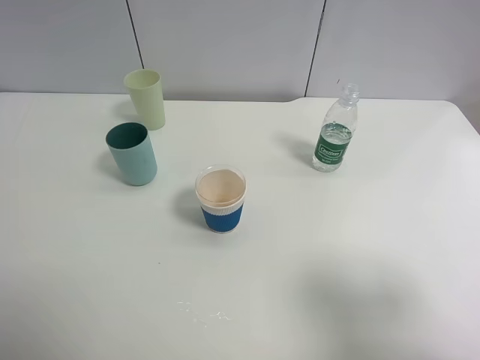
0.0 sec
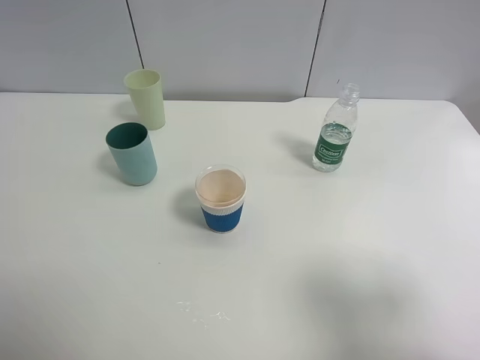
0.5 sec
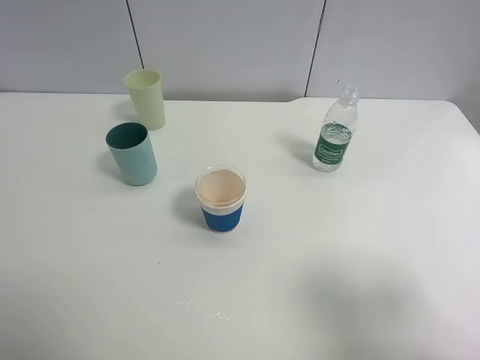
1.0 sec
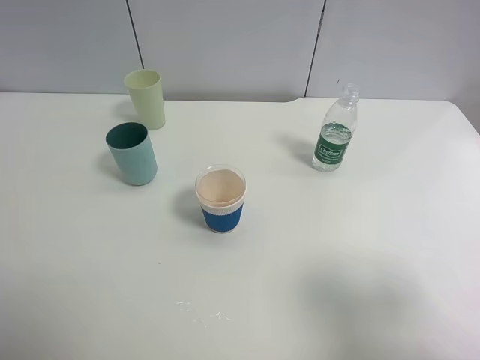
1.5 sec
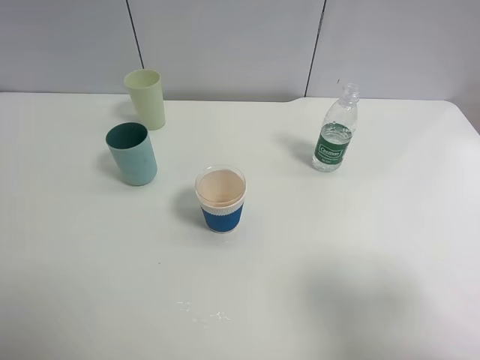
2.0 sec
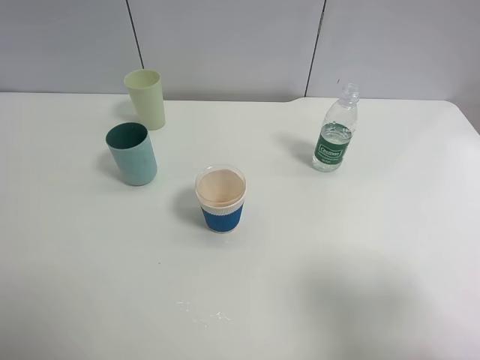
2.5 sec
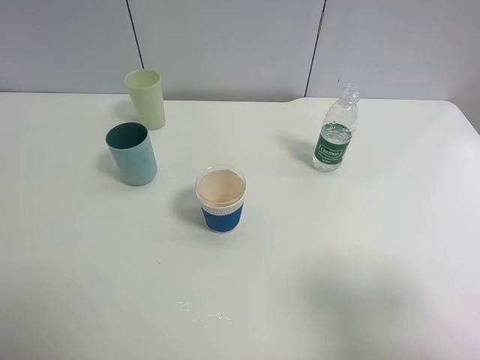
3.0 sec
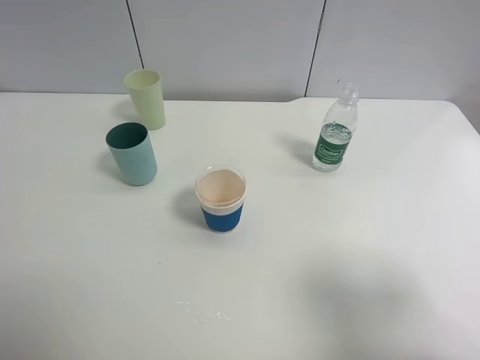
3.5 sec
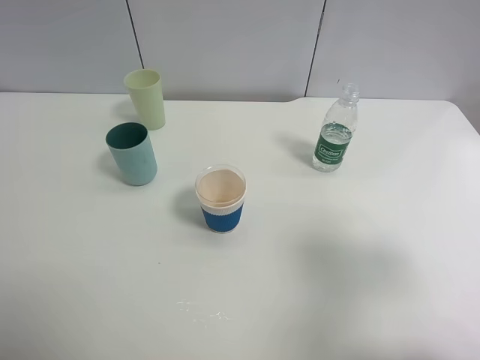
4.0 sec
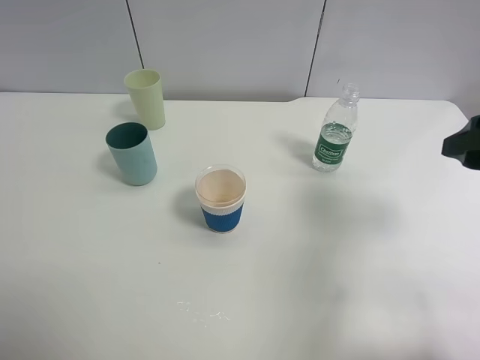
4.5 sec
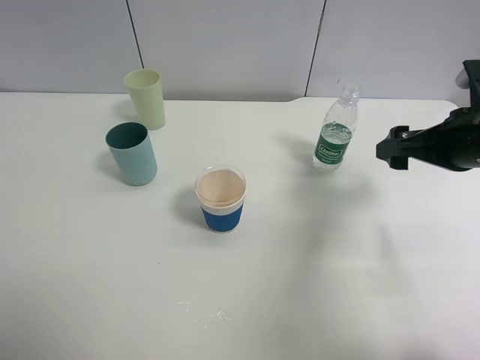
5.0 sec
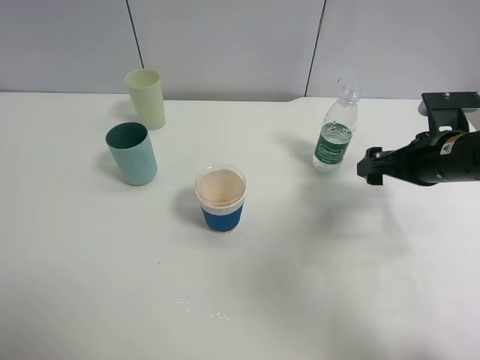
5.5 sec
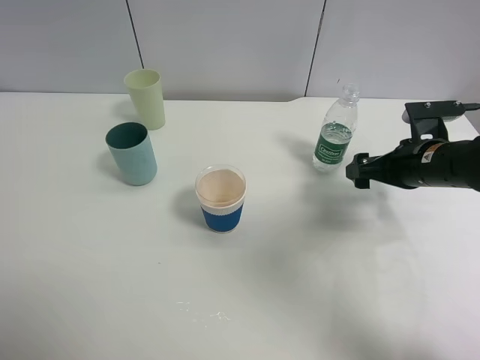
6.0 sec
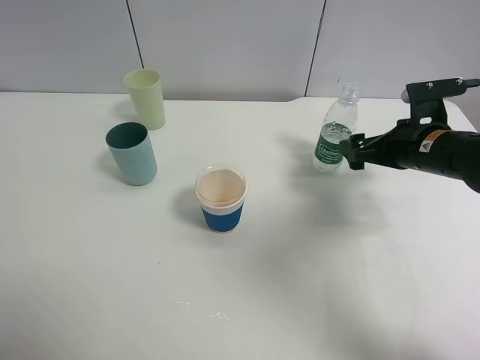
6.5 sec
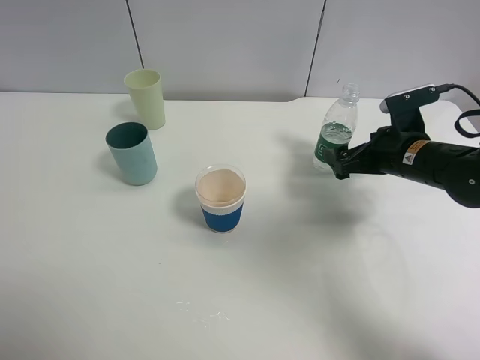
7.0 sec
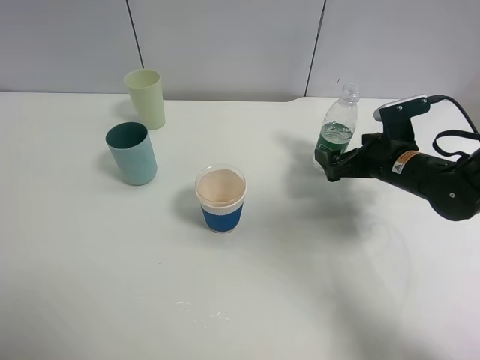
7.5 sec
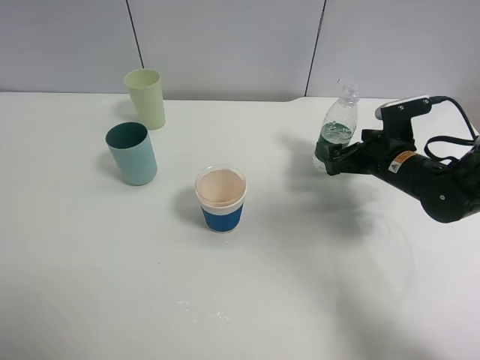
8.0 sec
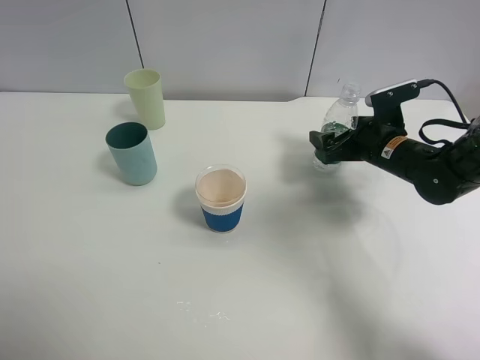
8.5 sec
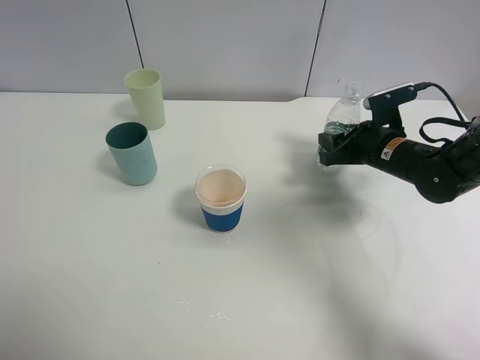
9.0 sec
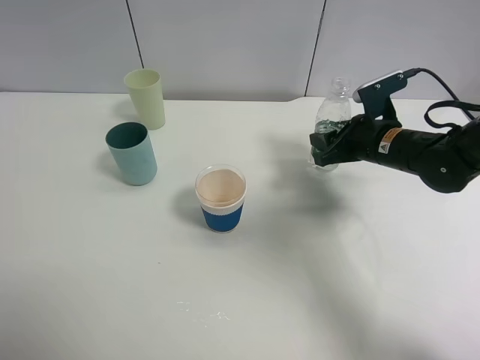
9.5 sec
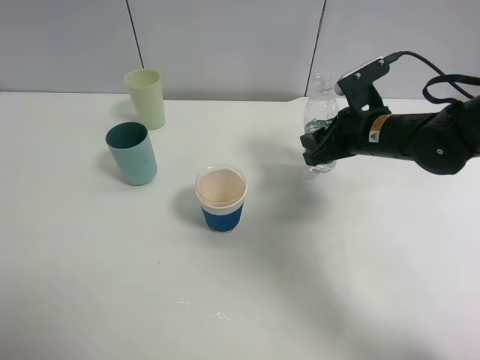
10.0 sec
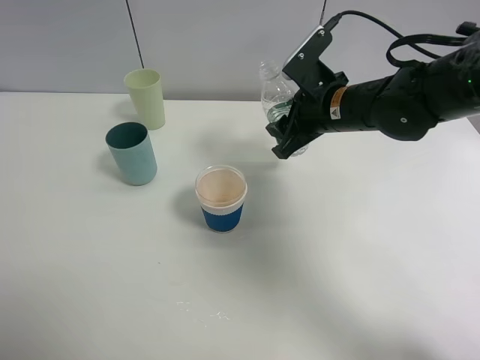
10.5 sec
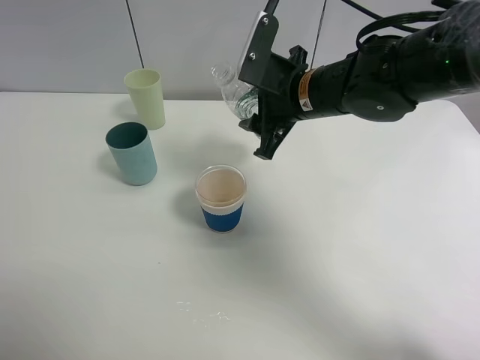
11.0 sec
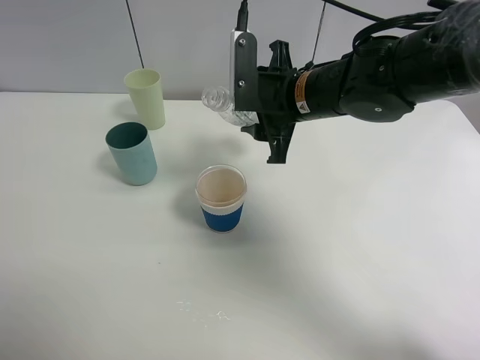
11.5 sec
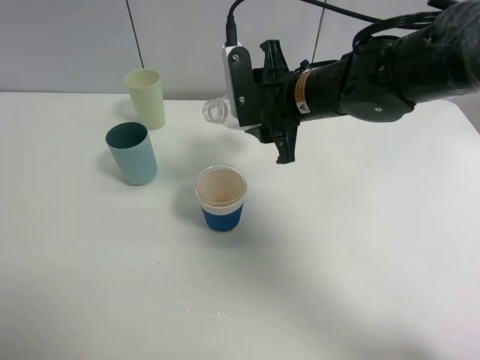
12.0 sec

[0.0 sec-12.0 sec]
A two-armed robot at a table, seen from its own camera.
Task of the whole recording: use a clamp to hold the bottle of the drink, pour the beverage into a random cup, then clamp the cup containing the drink and pour the drink into another random cup.
Step, 0.0 sec to 10.5 sec: Pick up the water bottle with right gripper.
0.0 sec to 2.0 sec: The two grippers keep their place.
2.0 sec to 4.0 sec: The right gripper heads forward, covering some 5 cm.
4.0 sec to 6.0 sec: The right gripper heads forward and downward, covering some 25 cm.
6.0 sec to 8.0 sec: The right gripper changes place by approximately 5 cm.
8.0 sec to 10.0 sec: The right gripper travels upward and to the left by approximately 10 cm, and closes.
10.0 sec to 12.0 sec: The right gripper moves to the left and upward, about 10 cm.

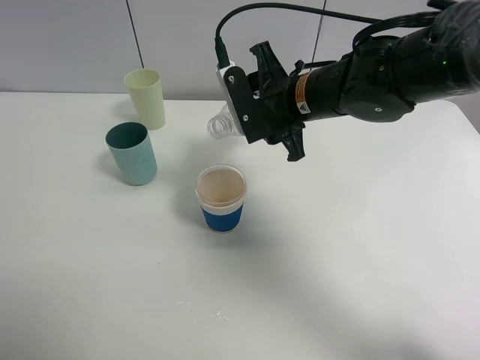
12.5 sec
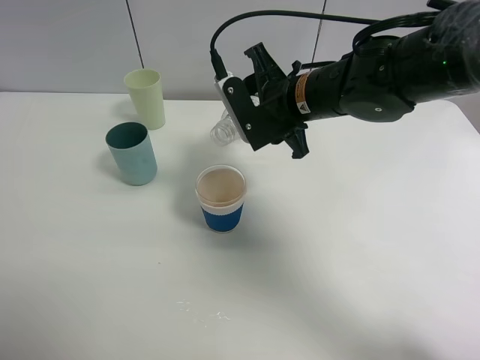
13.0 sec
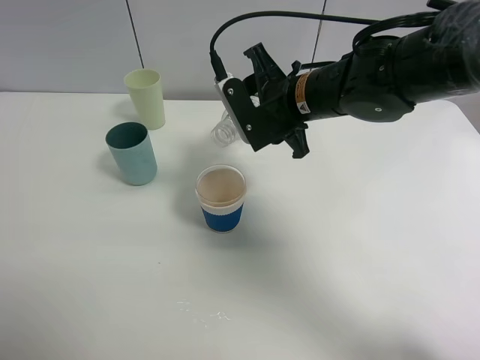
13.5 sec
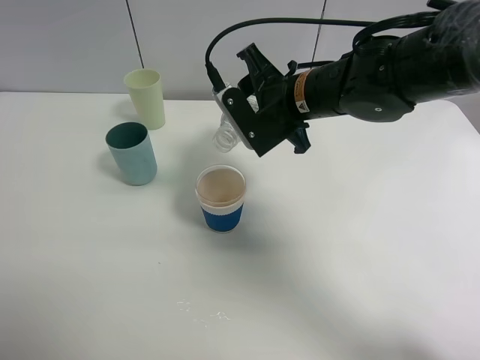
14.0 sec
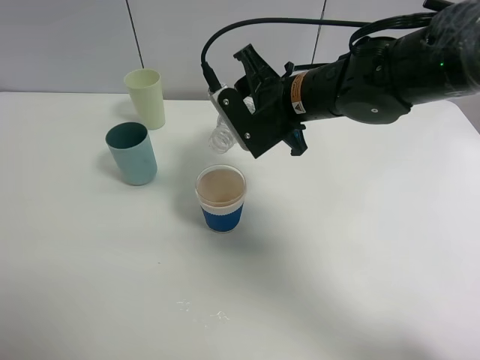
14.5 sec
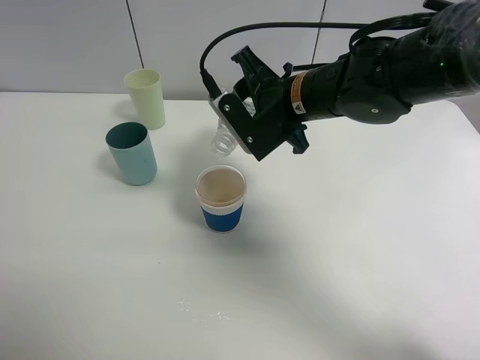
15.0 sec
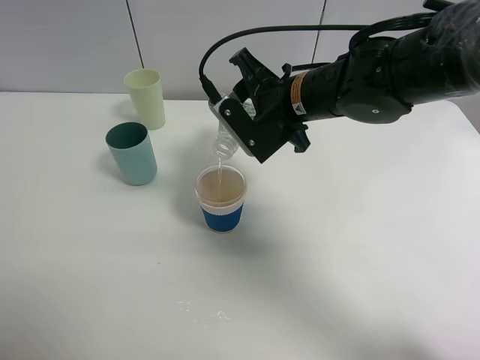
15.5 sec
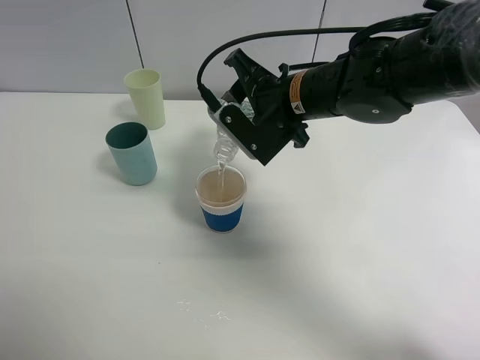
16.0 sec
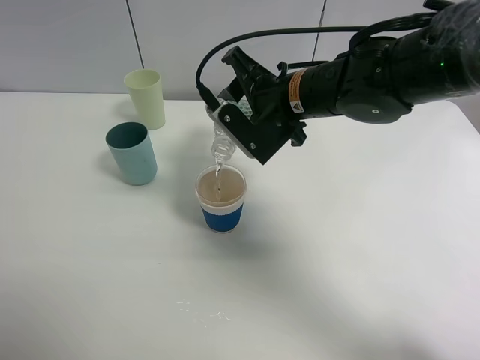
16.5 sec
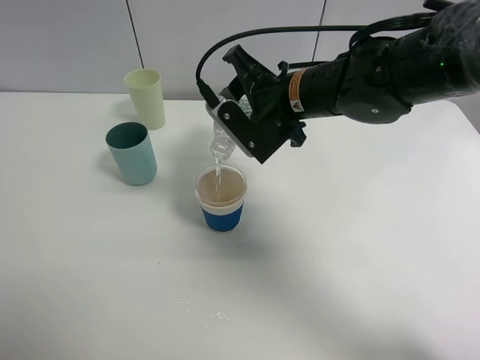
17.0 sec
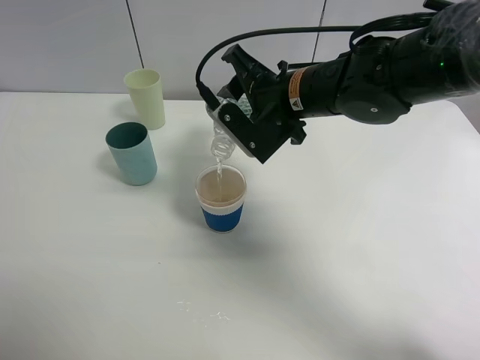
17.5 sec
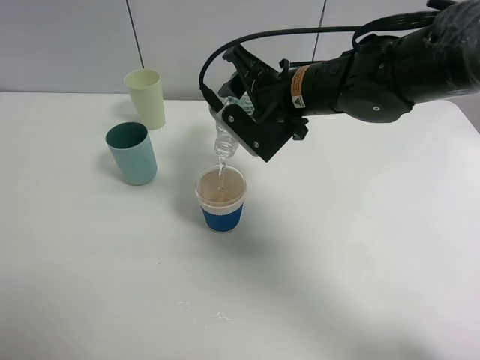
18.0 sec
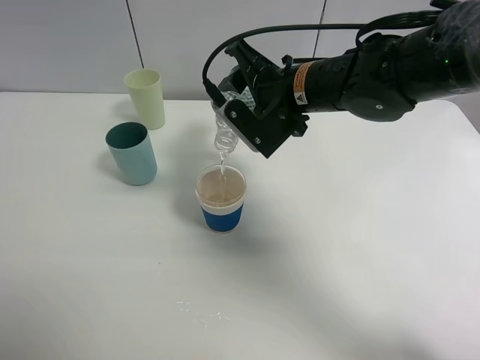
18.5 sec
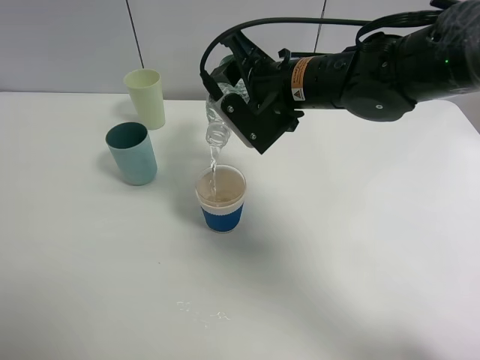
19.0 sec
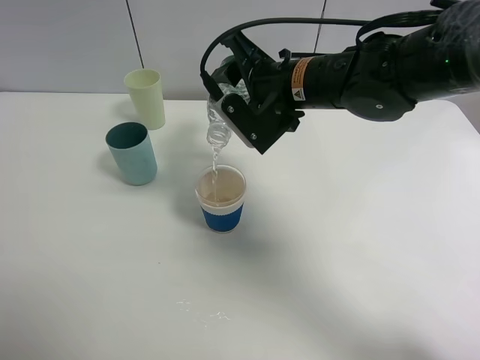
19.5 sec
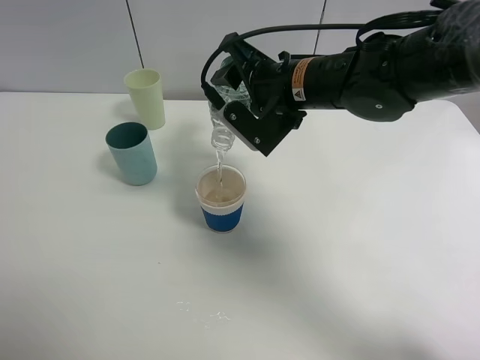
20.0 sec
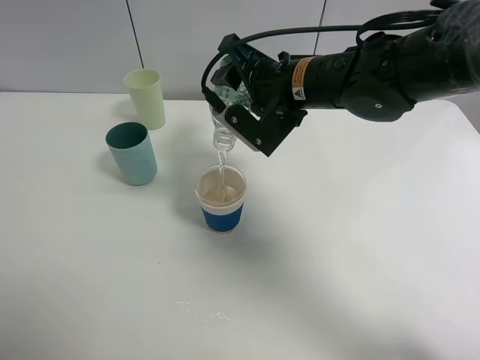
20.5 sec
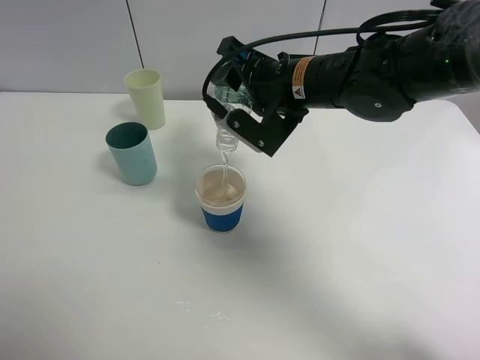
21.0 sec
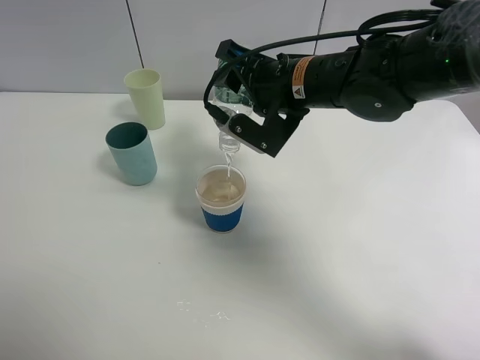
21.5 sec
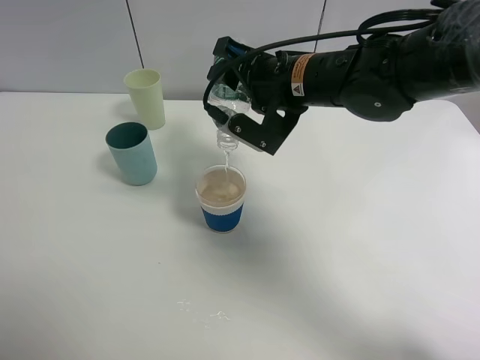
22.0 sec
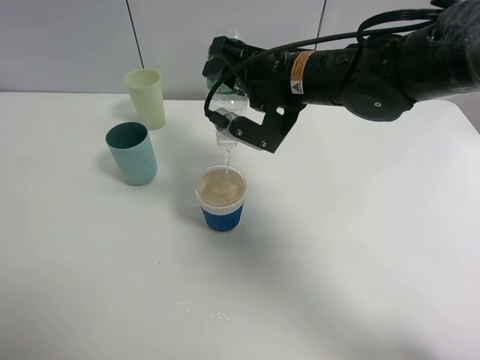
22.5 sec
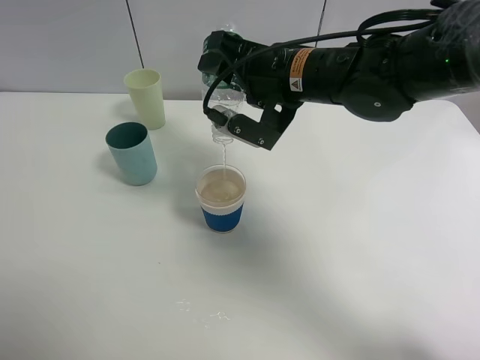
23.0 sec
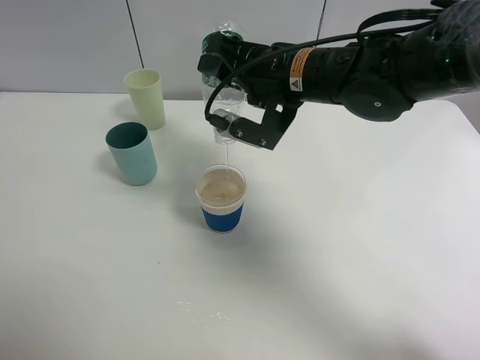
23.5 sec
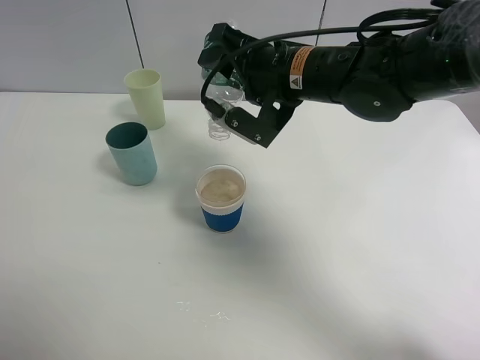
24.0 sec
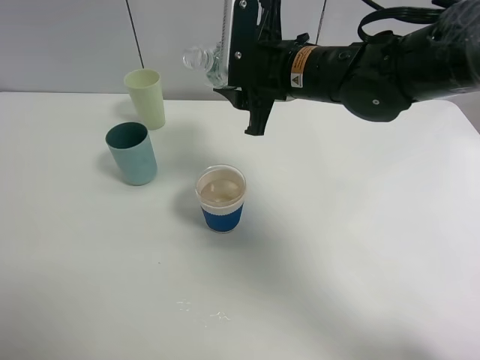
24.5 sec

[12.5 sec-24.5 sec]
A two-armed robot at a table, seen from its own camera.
Task of the whole recording: use a clamp to hold the bottle of the drink, pour the beverage into a random cup, then clamp the cup containing the drink and pour the drink into another random cup.
Step, 12.5 sec to 24.5 sec: Pour water into the paper cup with right gripper.
12.5 sec to 14.5 sec: There are only small adjustments of the grippers.
14.5 sec to 18.5 sec: The grippers stay close to where they were, moving slightly.
18.5 sec to 20.5 sec: The grippers make only small movements.
20.5 sec to 22.5 sec: The grippers move only a little.

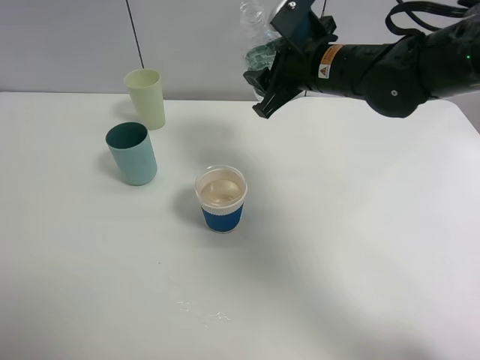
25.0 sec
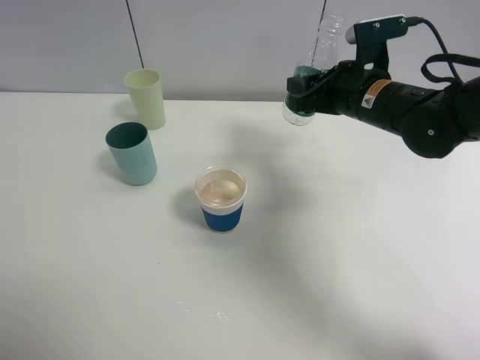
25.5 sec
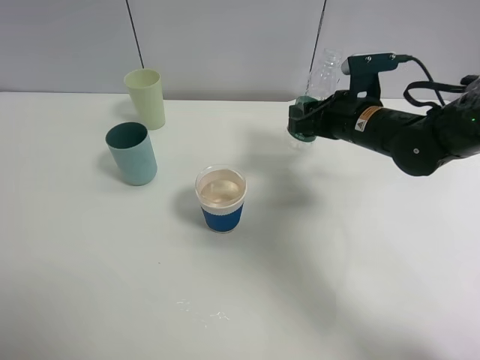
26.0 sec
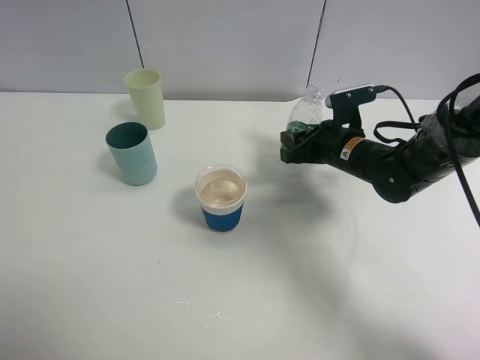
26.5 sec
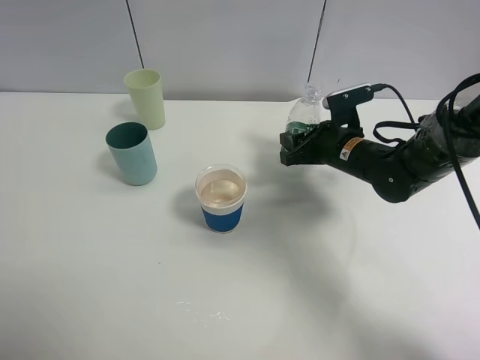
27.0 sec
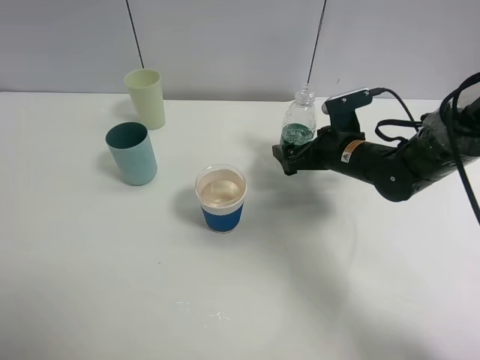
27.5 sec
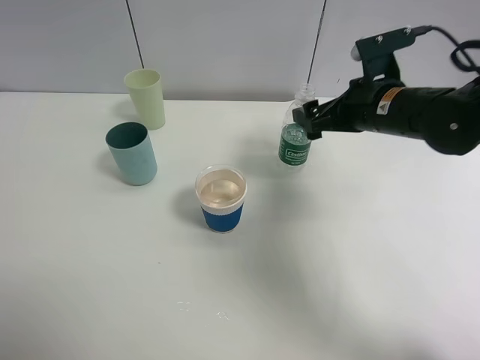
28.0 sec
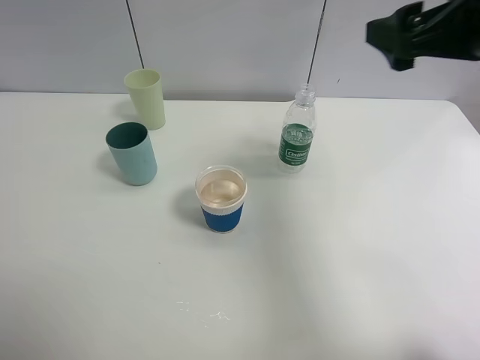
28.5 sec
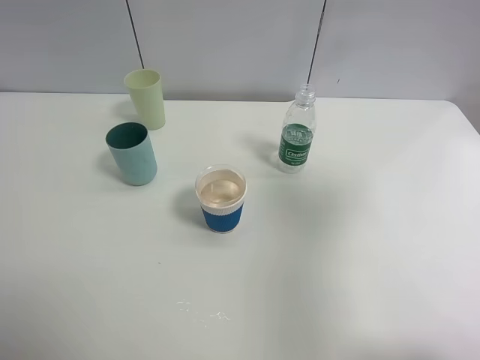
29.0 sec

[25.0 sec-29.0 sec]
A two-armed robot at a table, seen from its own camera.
Task of the whole recording: use a clamp to hold the bottle of the drink, pour the beverage into a random cup, then clamp the cup containing the drink and pour the drink into another random cup.
Step, 25.0 sec to 28.0 sec: Place the water bottle on the table with right gripper.
25.0 sec to 27.0 sec: The right gripper heads downward and to the right, covering some 15 cm.
27.0 sec to 29.0 sec: The right gripper shifts some 40 cm upward, backward and to the right, and opens.
